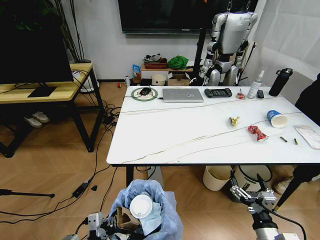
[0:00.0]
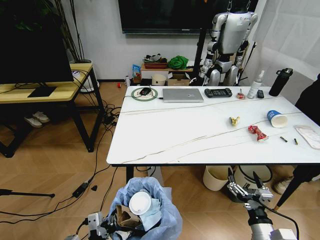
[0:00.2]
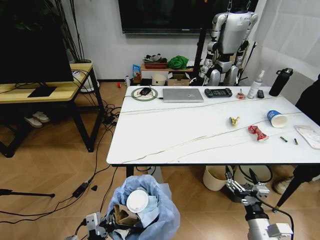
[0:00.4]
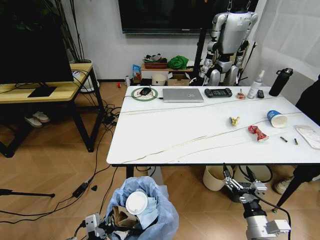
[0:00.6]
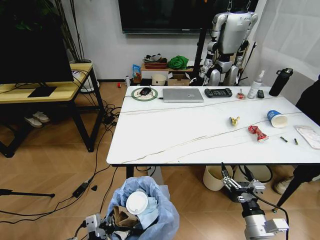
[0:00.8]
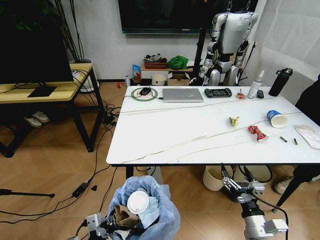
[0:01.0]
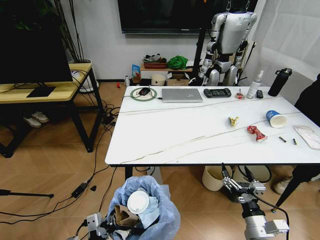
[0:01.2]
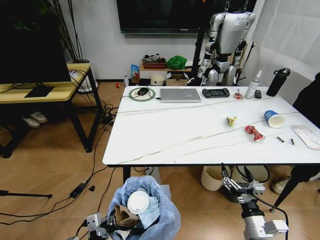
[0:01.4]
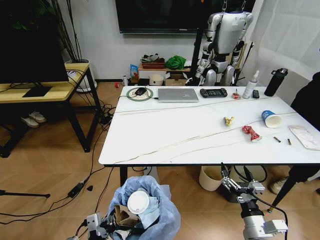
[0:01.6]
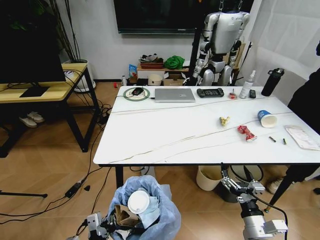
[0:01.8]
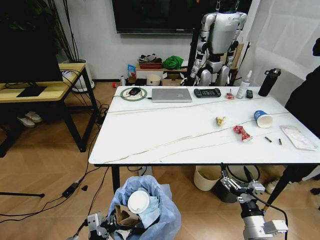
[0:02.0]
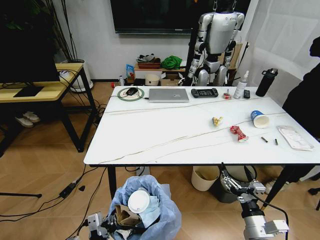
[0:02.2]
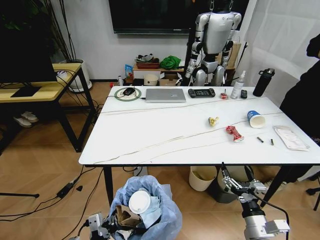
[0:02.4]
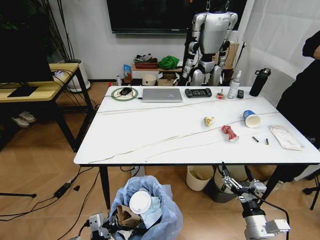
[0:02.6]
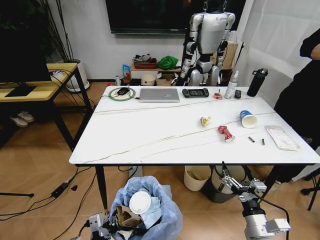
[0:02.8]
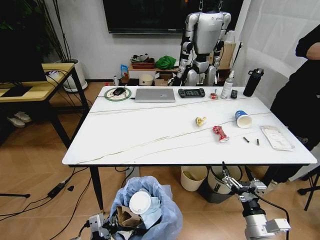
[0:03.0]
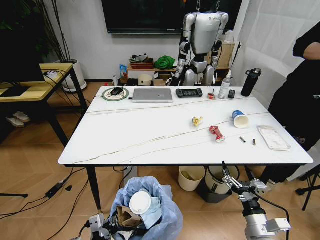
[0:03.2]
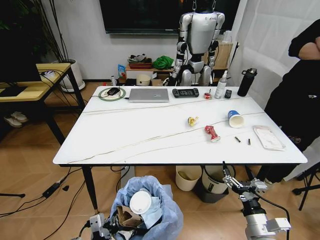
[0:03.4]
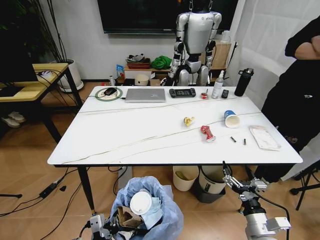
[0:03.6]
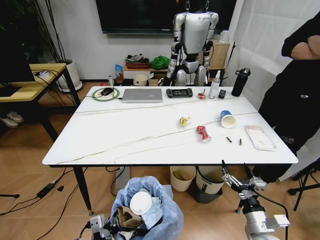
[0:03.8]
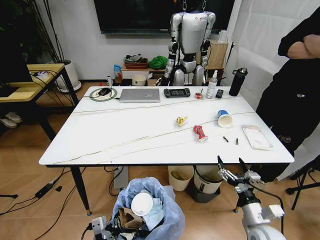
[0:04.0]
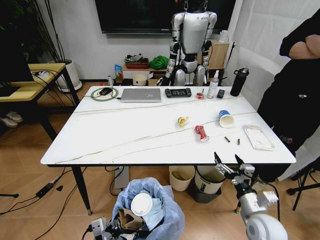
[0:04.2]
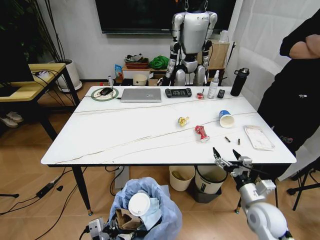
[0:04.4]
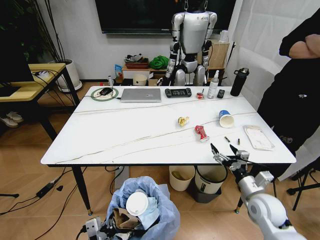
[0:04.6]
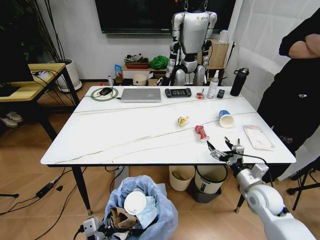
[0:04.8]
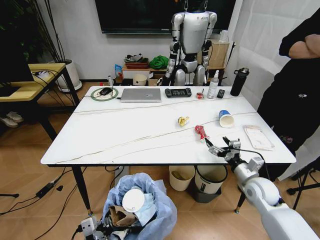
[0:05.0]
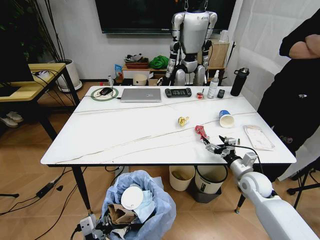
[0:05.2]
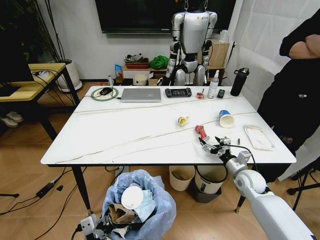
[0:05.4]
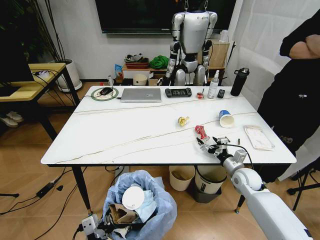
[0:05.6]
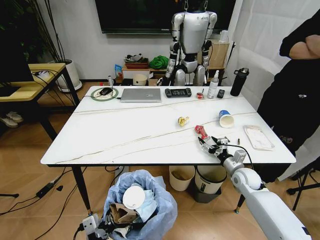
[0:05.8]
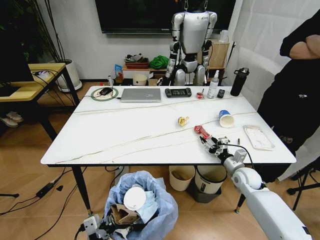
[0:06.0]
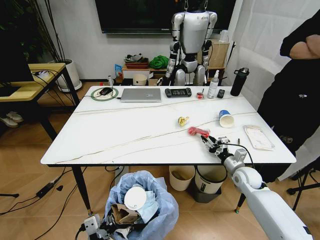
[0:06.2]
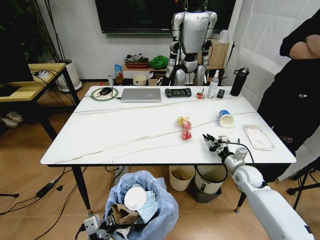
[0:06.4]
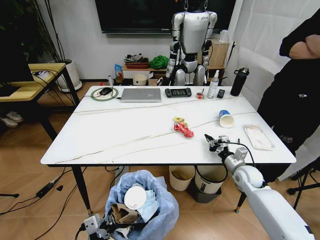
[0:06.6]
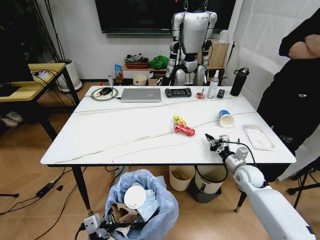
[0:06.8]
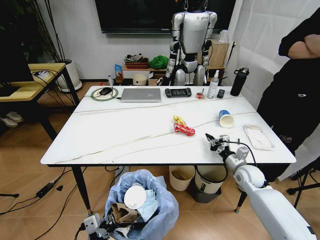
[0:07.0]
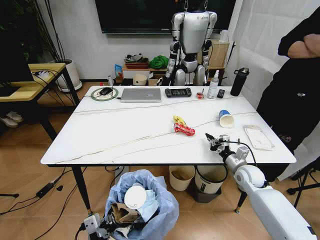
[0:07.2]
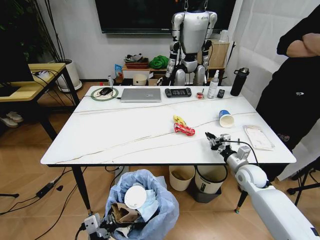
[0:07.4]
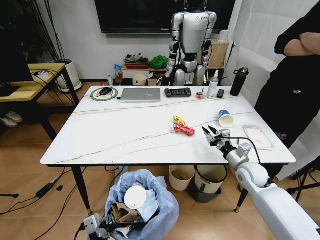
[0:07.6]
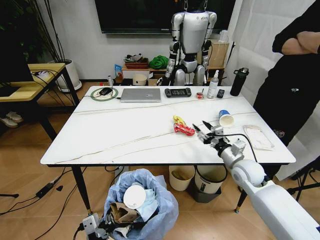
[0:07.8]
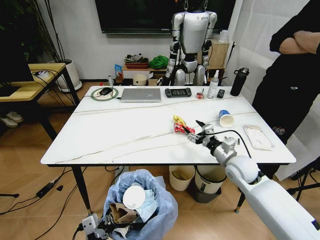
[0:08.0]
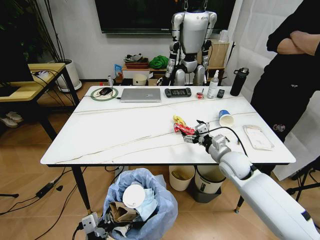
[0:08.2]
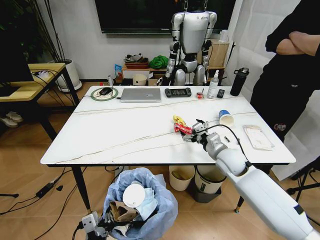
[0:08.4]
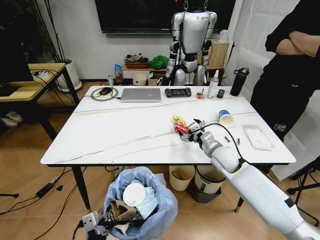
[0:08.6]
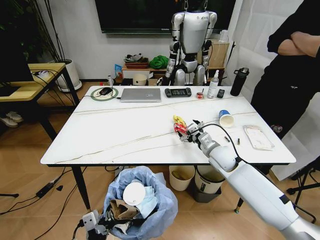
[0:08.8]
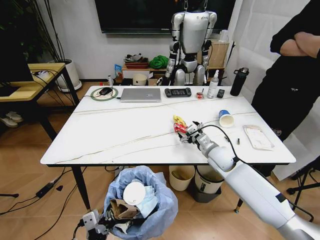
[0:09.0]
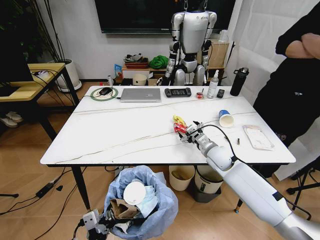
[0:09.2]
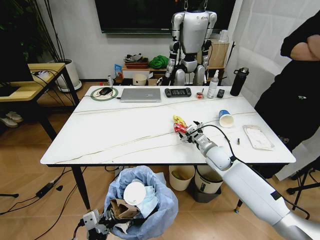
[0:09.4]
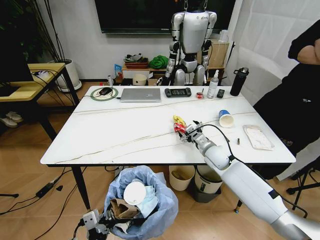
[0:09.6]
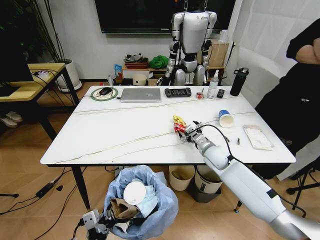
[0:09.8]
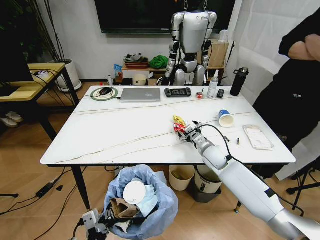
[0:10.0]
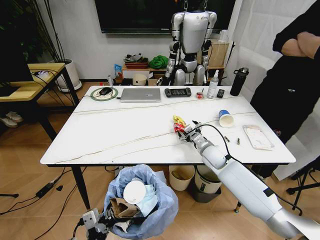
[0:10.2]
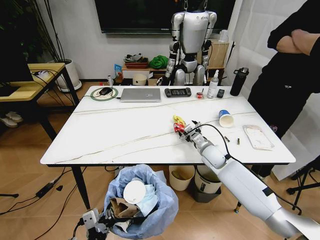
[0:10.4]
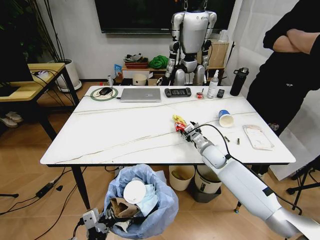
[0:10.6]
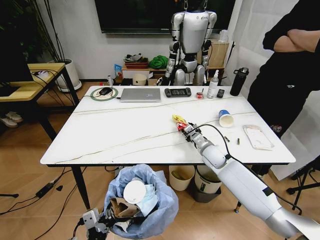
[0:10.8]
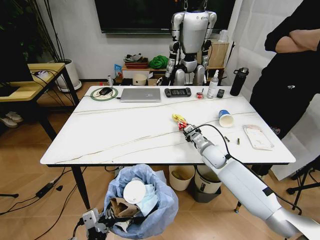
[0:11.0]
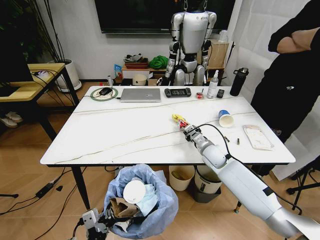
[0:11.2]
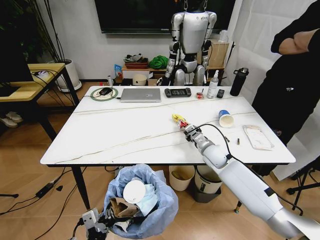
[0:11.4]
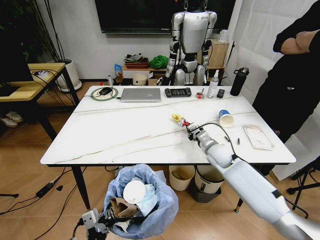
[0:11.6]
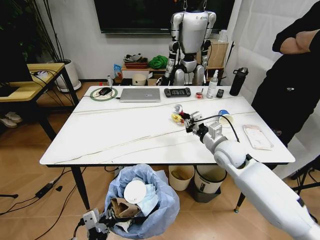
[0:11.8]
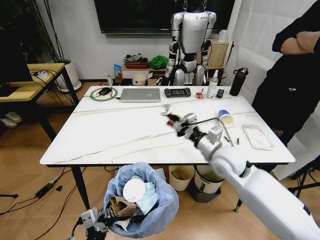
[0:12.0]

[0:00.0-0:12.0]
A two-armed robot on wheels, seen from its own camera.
Task of the whole recording: Pick up the trash bin and place the trash from the table into it.
0:03.0 to 0:04.4: The right gripper travels forward by approximately 10 cm.
0:04.4 to 0:06.0: The right gripper moves forward, about 15 cm, and closes up.
0:06.0 to 0:07.6: The right gripper travels upward by some 5 cm.
0:07.6 to 0:09.0: The right gripper travels to the left and forward by roughly 10 cm, and opens.
0:09.0 to 0:10.4: The grippers move only a little.
0:10.4 to 0:12.0: The right gripper travels upward and backward by some 15 cm, and closes its fingers.

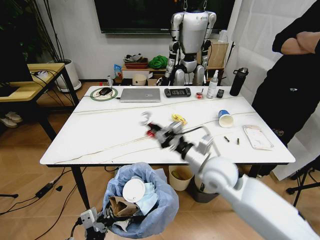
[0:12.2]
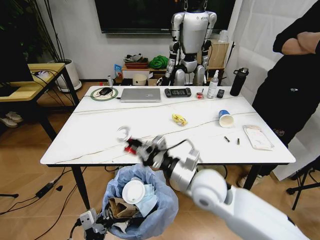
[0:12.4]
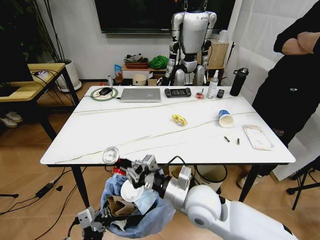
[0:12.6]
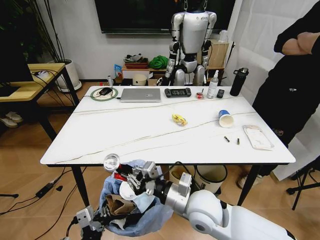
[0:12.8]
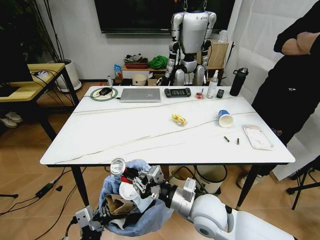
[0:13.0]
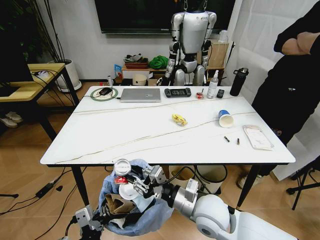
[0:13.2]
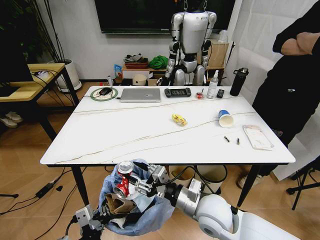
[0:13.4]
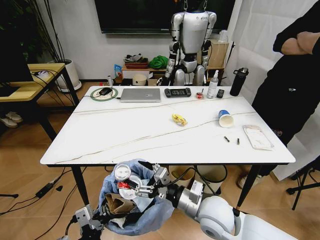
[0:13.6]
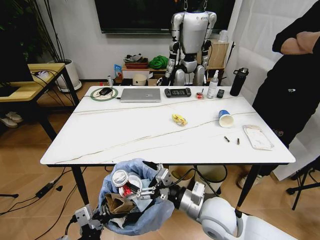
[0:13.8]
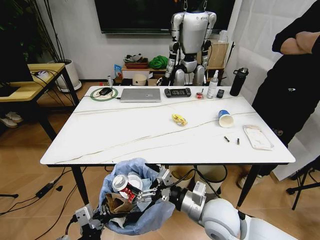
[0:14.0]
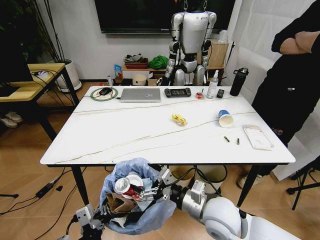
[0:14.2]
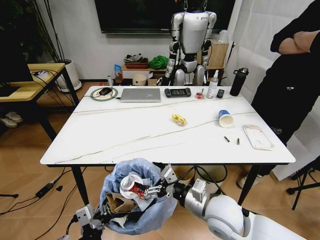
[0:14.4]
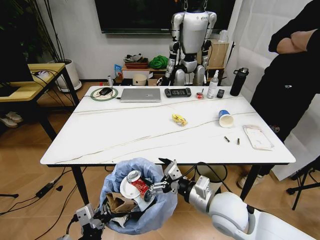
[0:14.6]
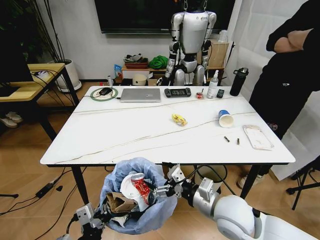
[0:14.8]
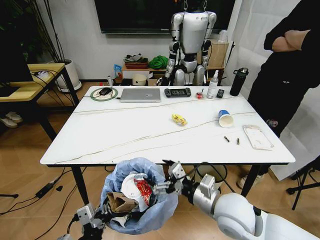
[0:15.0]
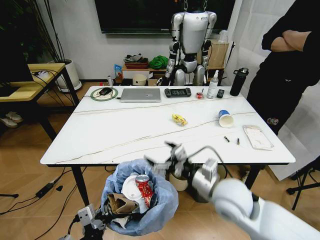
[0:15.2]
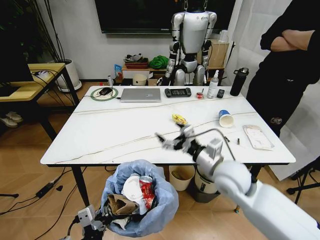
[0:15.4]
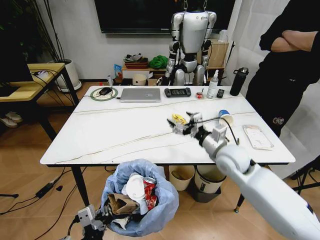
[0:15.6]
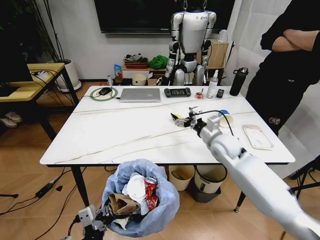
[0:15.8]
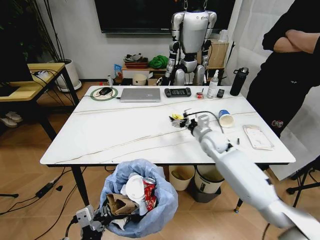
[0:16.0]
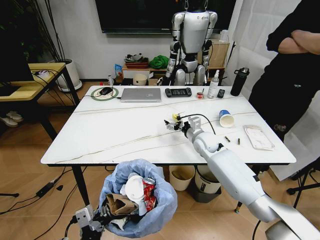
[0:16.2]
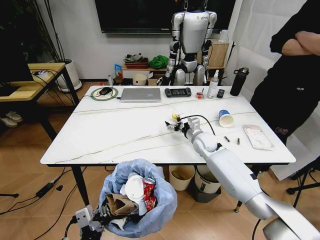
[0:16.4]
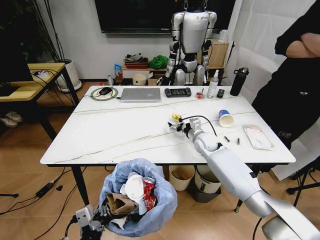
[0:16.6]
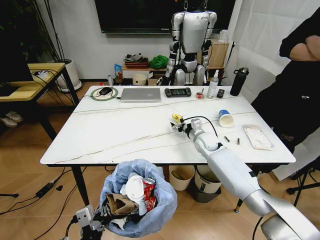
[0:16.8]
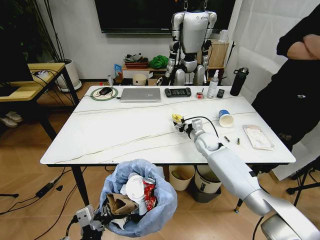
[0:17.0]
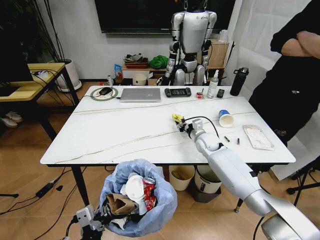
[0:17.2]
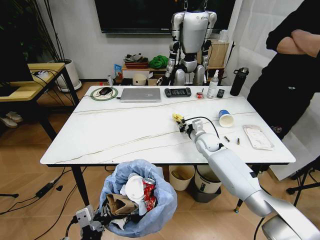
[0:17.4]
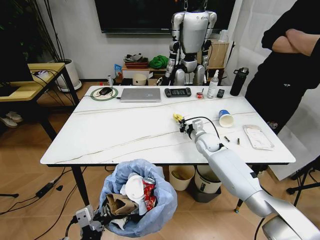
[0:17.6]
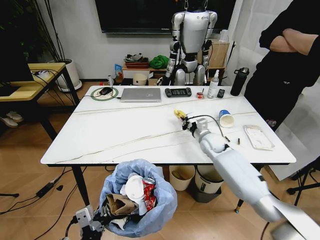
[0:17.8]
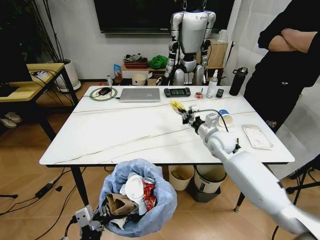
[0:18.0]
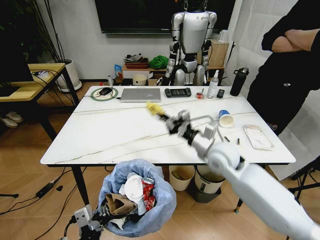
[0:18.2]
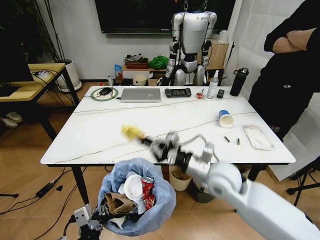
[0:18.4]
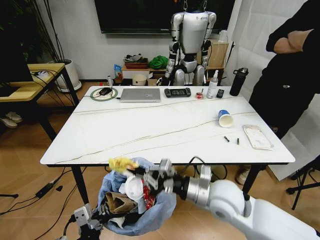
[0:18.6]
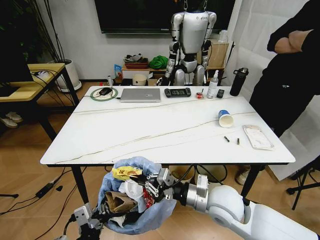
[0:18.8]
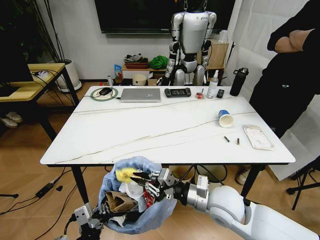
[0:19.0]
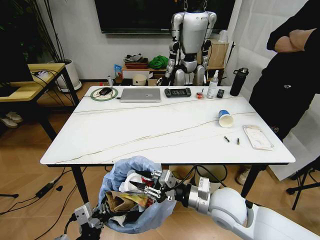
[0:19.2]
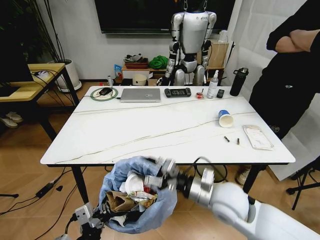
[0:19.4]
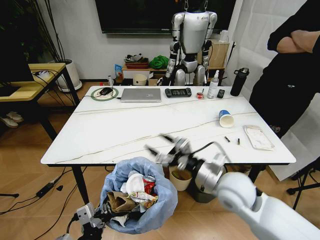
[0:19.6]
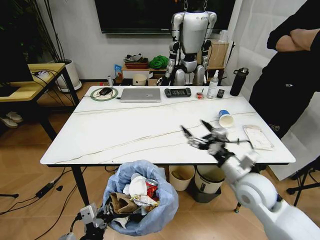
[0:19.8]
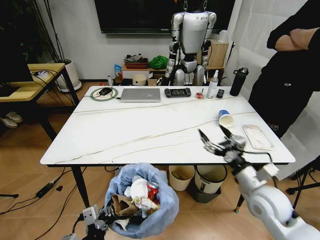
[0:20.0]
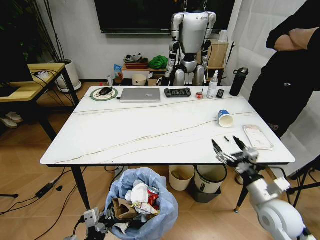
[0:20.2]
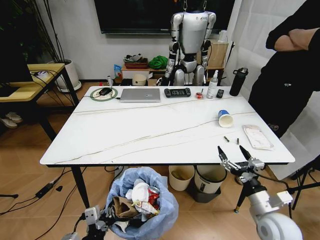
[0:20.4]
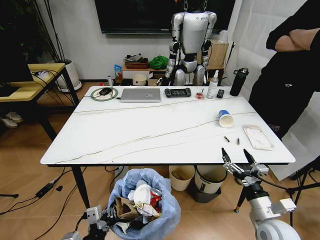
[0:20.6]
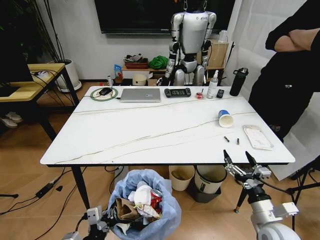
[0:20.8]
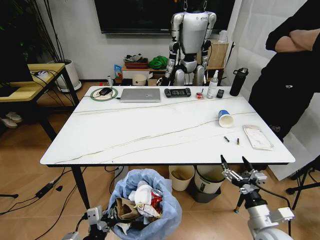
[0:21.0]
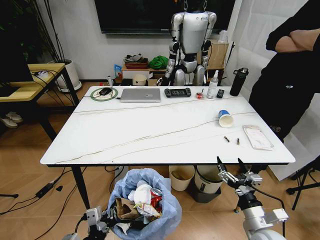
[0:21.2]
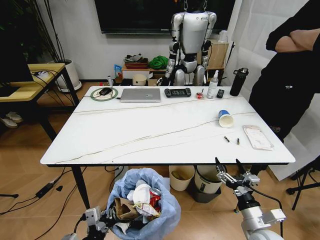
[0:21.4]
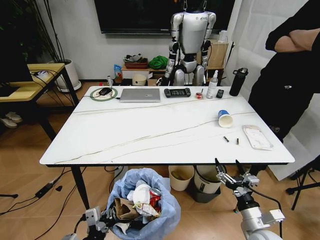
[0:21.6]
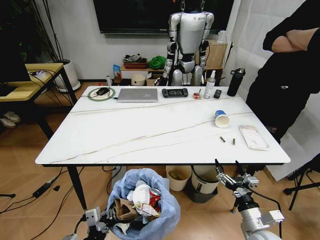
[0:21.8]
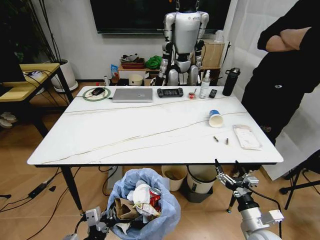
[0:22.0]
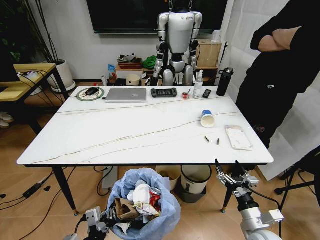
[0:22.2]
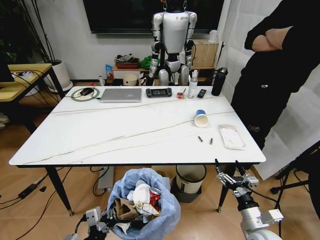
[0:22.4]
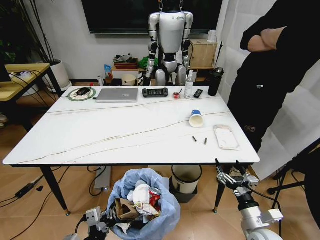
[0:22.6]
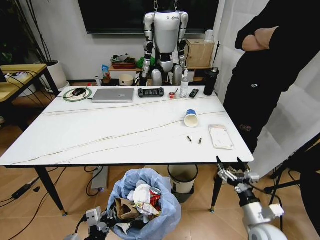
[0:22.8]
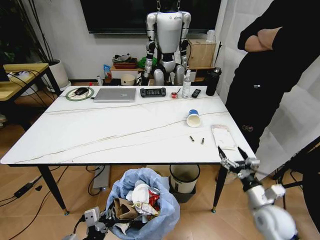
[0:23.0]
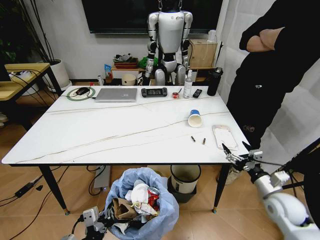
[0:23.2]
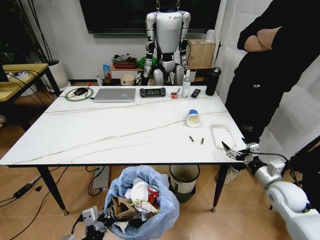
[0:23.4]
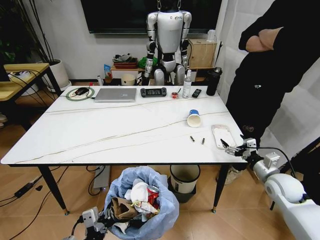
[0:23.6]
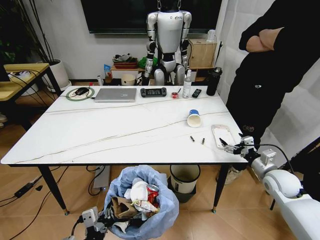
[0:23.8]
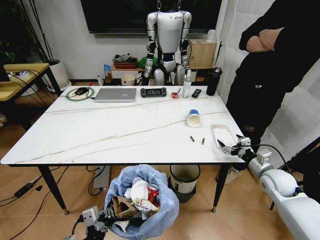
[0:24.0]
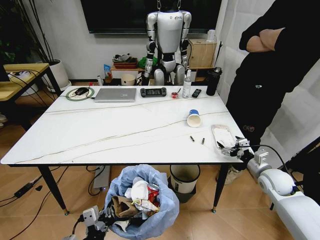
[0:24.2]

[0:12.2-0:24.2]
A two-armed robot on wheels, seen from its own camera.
Task of the whole recording: Pick up the trash bin and place the trash from the table into it.
0:12.2 to 0:13.8: The right gripper moves backward and downward, some 10 cm, and opens up.
0:13.8 to 0:15.2: The right gripper shifts about 5 cm upward.
0:15.2 to 0:16.6: The right gripper goes some 25 cm forward.
0:16.6 to 0:18.2: The right gripper is displaced backward and upward by approximately 15 cm, and closes its fingers.
0:18.2 to 0:19.8: The right gripper heads backward and to the right, covering approximately 10 cm, and opens up.
0:19.8 to 0:21.2: The right gripper goes approximately 20 cm downward, backward and to the right.
0:22.6 to 0:24.2: The right gripper travels forward and to the right by roughly 20 cm.
